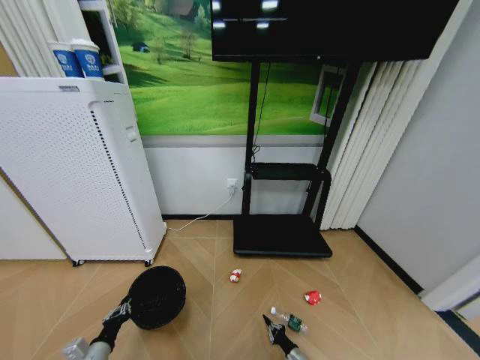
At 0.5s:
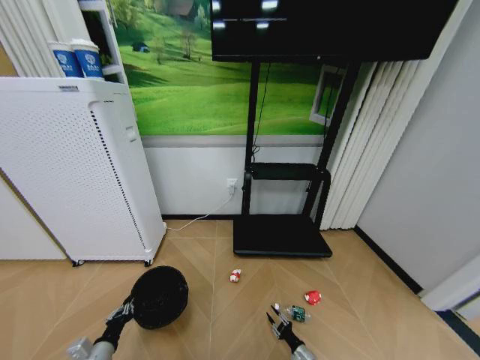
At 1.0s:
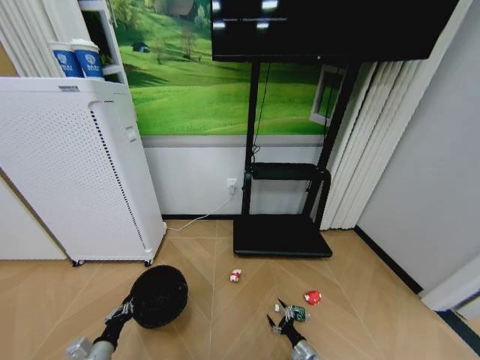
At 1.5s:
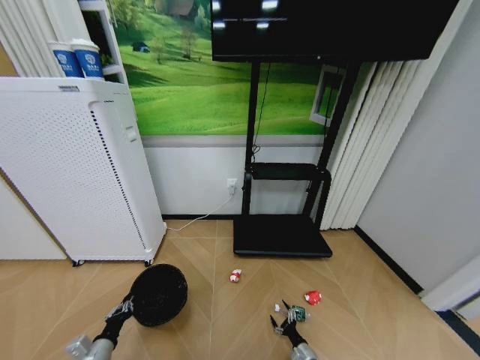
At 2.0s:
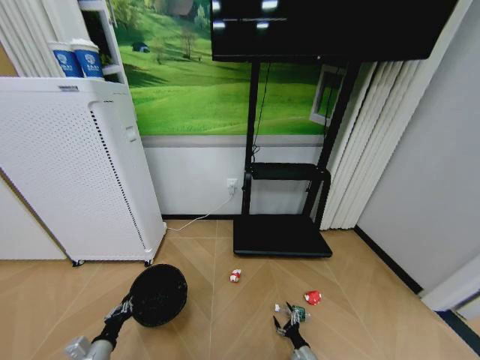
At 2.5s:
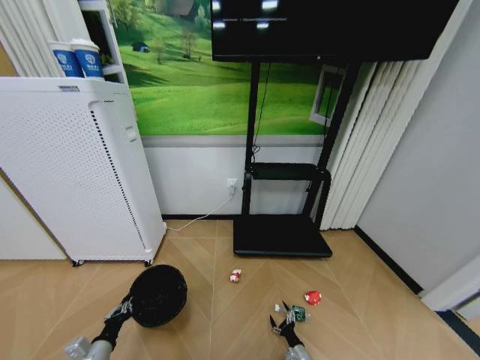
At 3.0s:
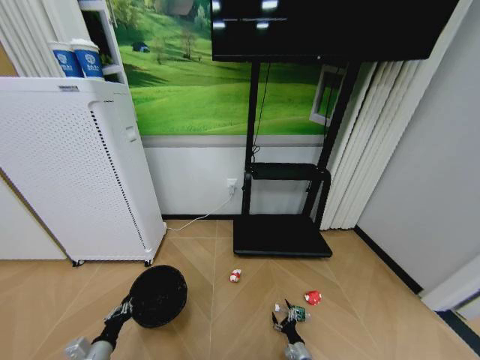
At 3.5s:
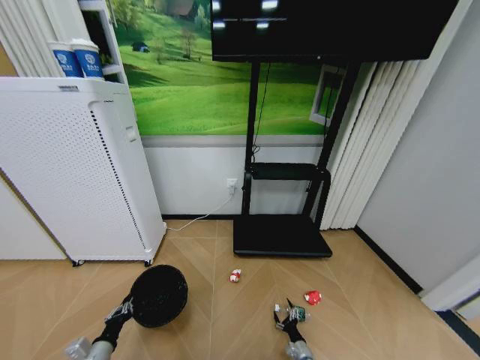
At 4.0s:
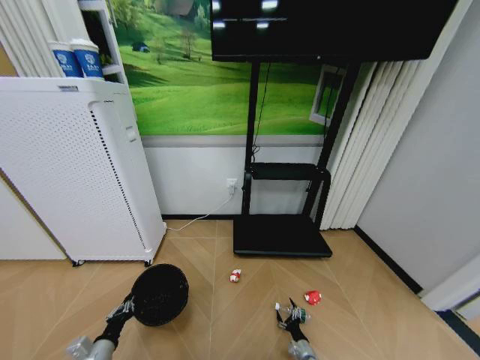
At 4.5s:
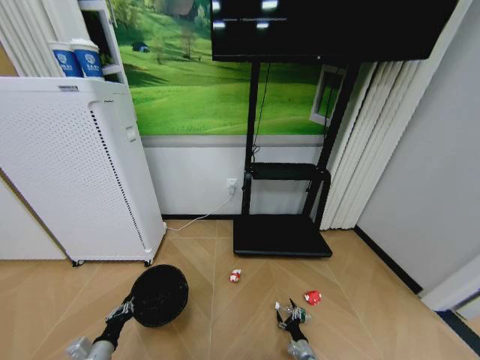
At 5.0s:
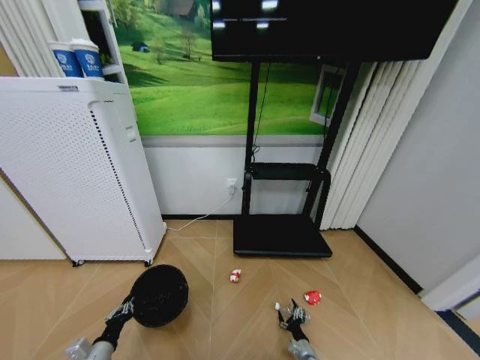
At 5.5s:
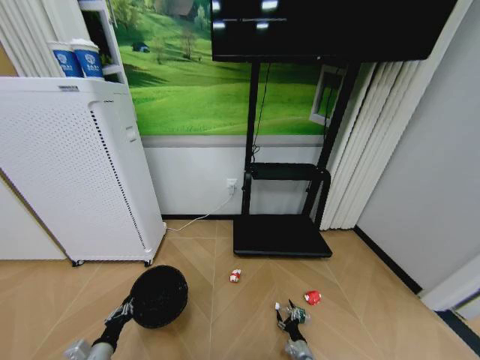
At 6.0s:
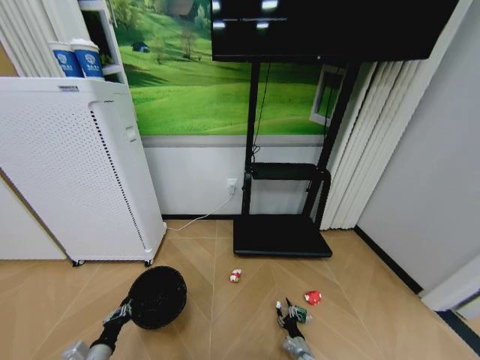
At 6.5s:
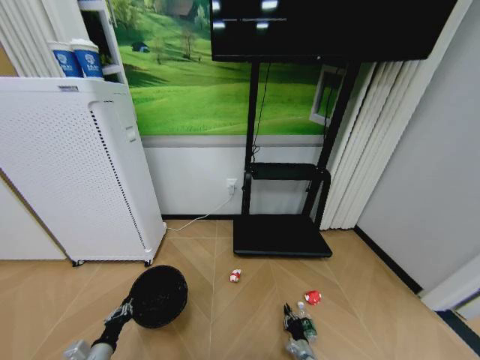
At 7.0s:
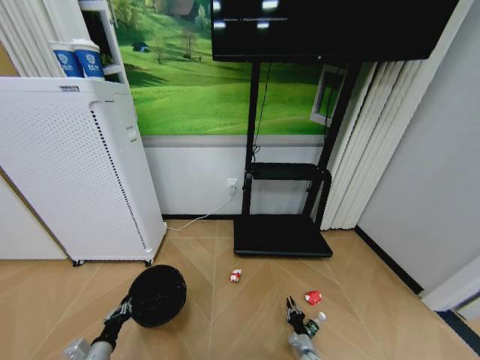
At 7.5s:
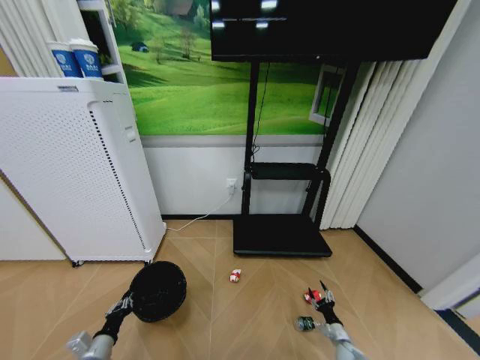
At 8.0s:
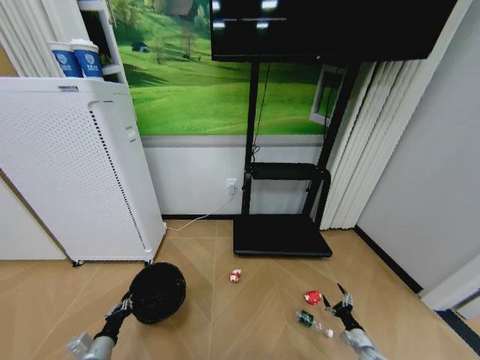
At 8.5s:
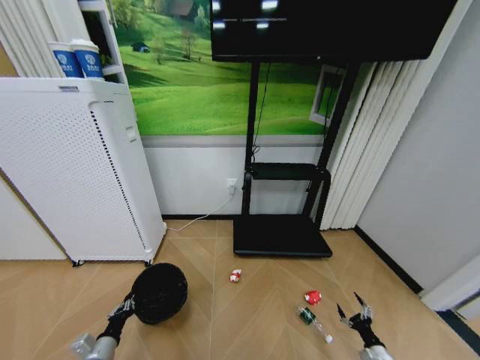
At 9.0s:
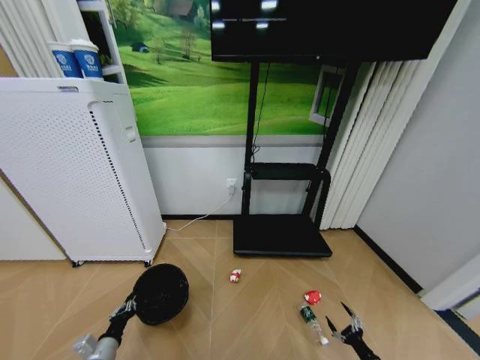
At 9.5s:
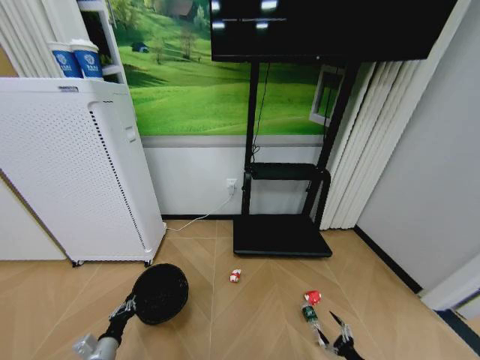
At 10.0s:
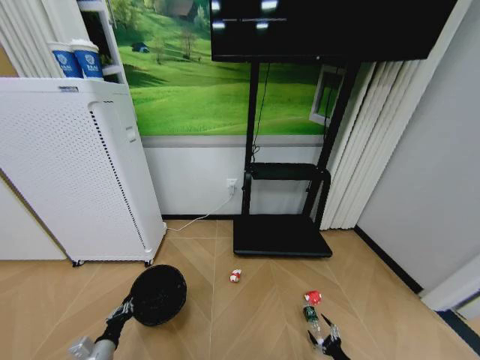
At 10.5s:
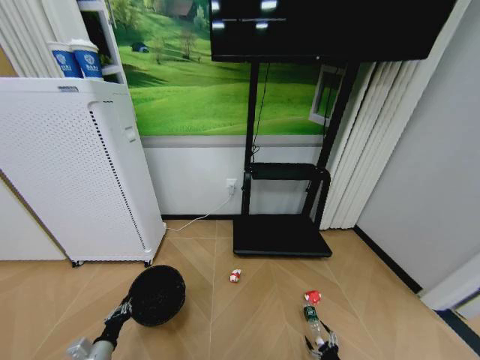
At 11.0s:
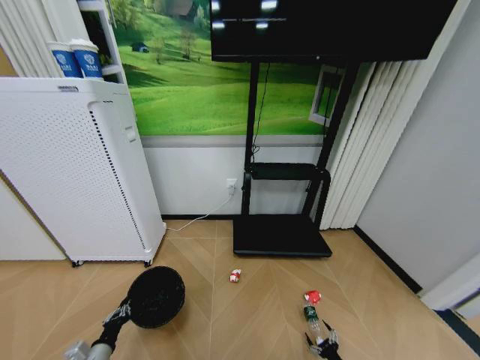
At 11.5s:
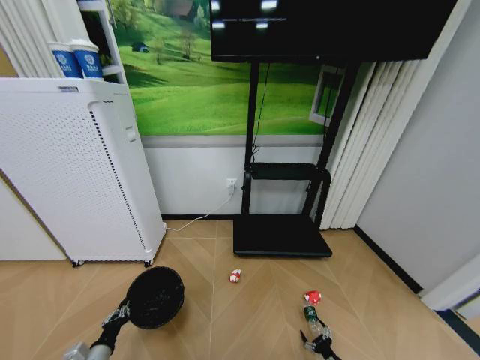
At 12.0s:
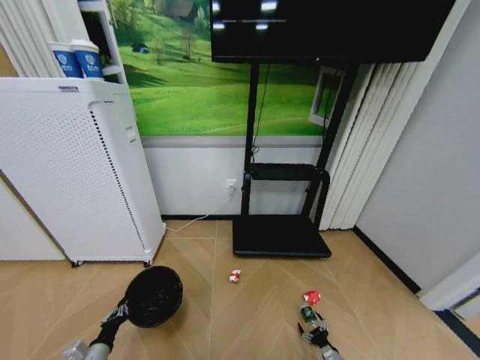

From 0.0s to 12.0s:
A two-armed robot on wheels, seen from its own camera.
Task of the whole recording: Pick up the trash bin and place the garbage on the floor into it.
From 0.0s to 2.0s: The right gripper opens its fingers.
From 2.0s to 6.0s: There are only small adjustments of the grippers.
From 6.0s to 8.0s: The right gripper shifts approximately 20 cm to the right and upward, and closes, then reopens.
From 8.0s to 10.0s: The right gripper moves backward, roughly 10 cm.
From 10.0s to 12.0s: The right gripper shifts approximately 5 cm forward.

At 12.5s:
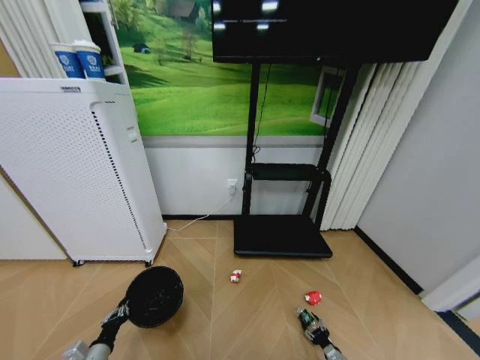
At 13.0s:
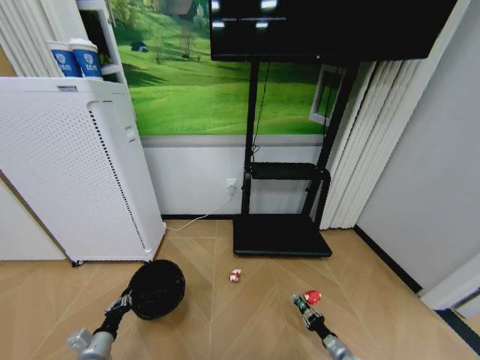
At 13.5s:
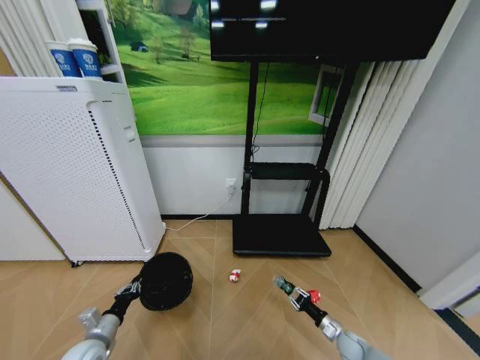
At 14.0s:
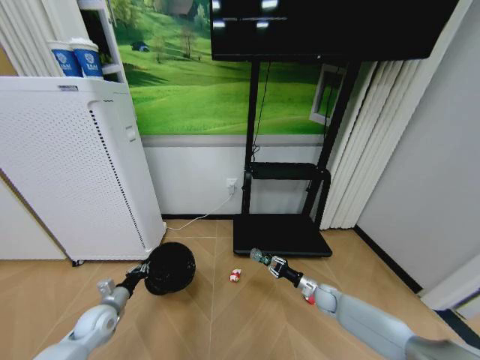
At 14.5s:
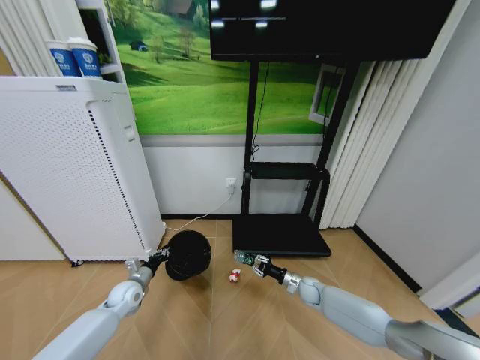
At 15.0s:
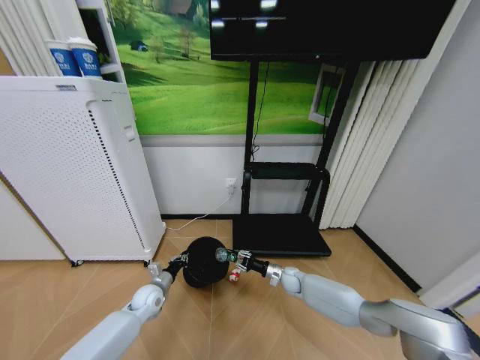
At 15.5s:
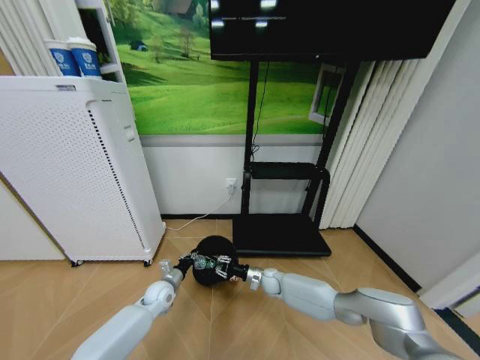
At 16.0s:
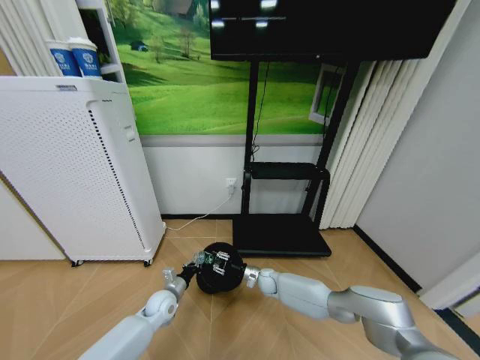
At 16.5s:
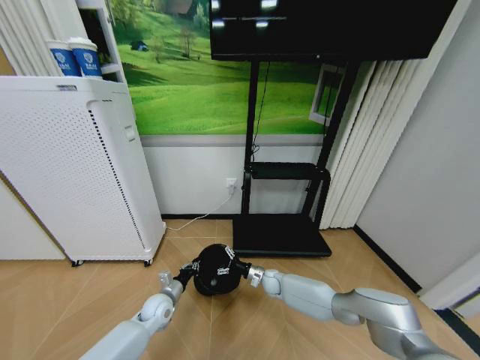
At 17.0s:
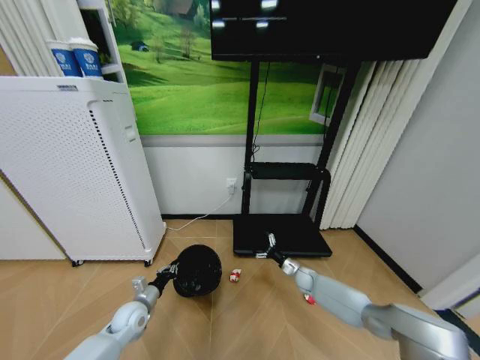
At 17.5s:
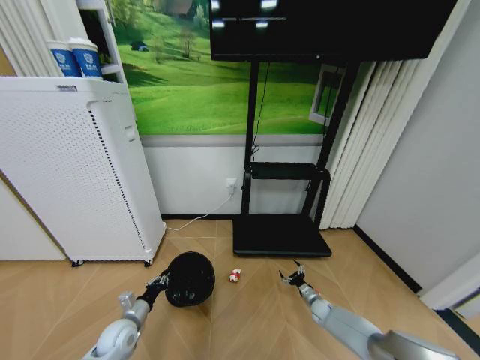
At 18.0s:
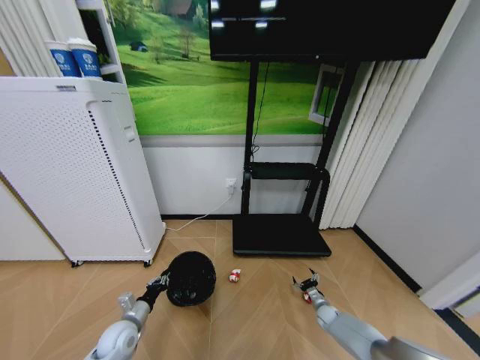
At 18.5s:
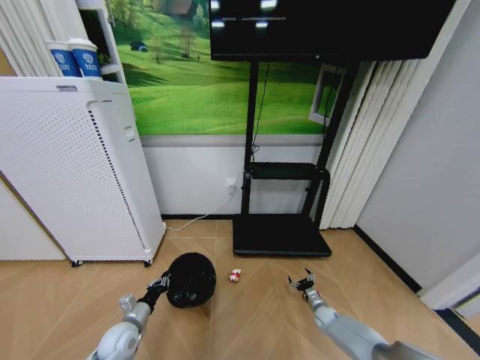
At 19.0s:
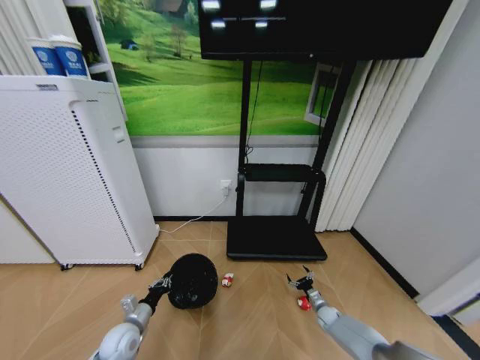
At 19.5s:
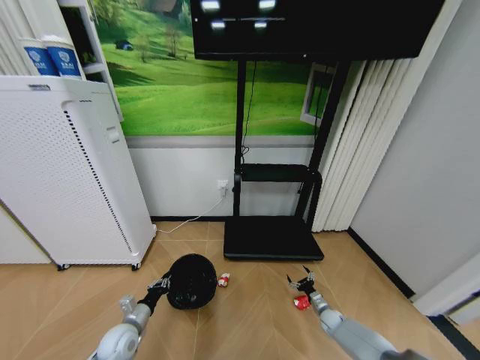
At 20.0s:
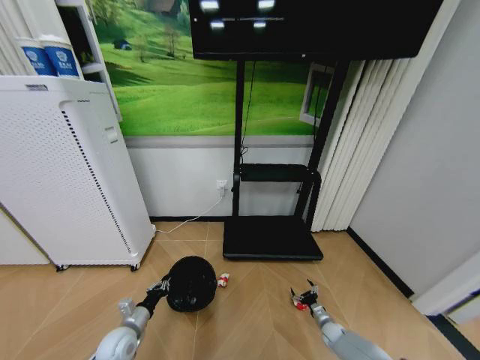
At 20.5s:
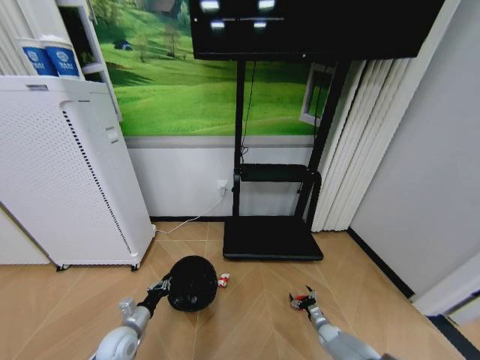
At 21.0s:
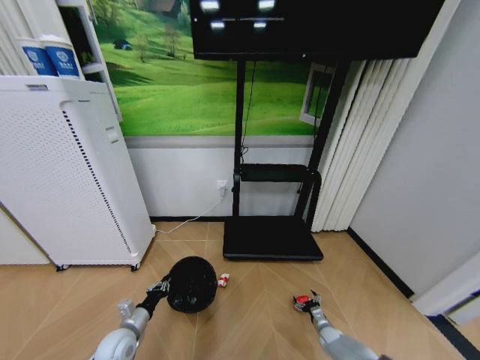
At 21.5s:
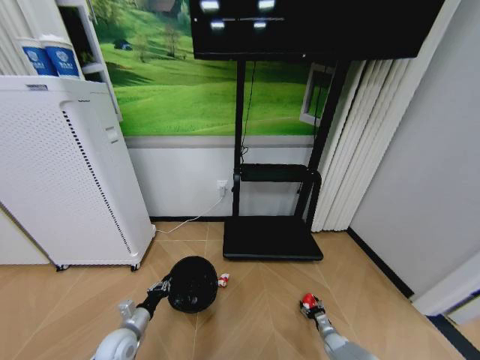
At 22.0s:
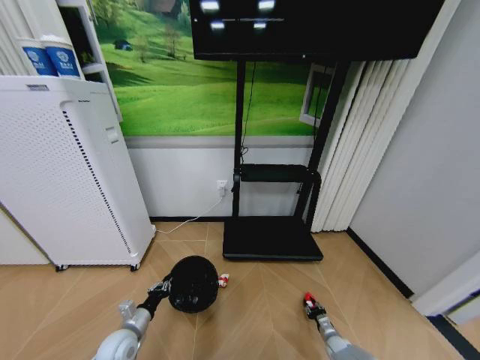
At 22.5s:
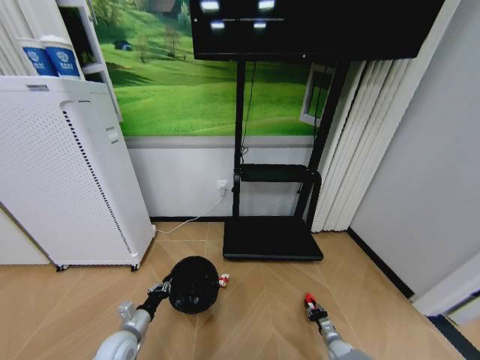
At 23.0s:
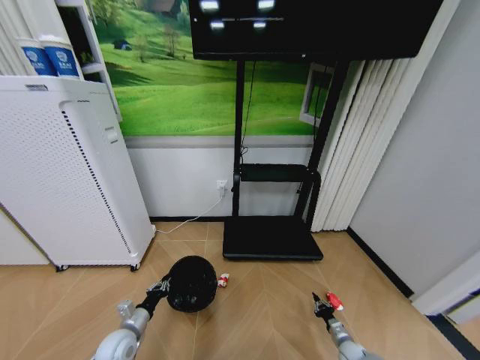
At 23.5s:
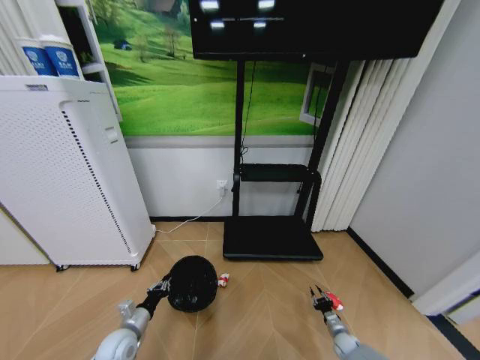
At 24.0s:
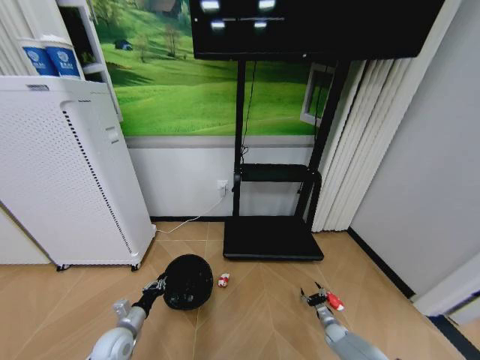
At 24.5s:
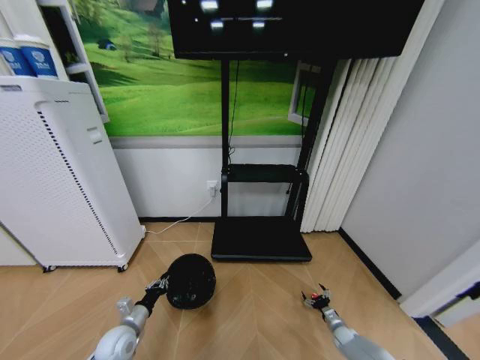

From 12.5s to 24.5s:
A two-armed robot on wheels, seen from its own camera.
Task of the whole recording: Pick up the trash bin and place the garbage on the floor into it.
From 12.5s to 14.5s: The right gripper shifts roughly 35 cm forward, upward and to the left, and closes, while the left gripper shifts about 20 cm forward.
From 14.5s to 16.5s: The right gripper heads to the left, covering approximately 15 cm, and opens up. The left gripper heads to the right, covering approximately 10 cm.
From 16.5s to 18.5s: The left gripper heads to the left and backward, covering approximately 10 cm. Meanwhile the right gripper goes roughly 25 cm to the right, downward and backward.
From 18.5s to 20.5s: The right gripper changes place by approximately 5 cm.
From 20.5s to 22.5s: The right gripper shifts by approximately 5 cm, and closes its fingers.
From 22.5s to 24.5s: The right gripper ends up about 5 cm from where it was, and opens its fingers.

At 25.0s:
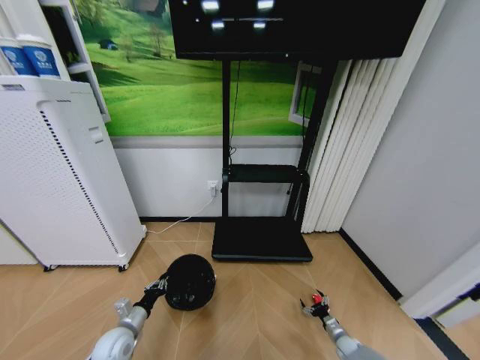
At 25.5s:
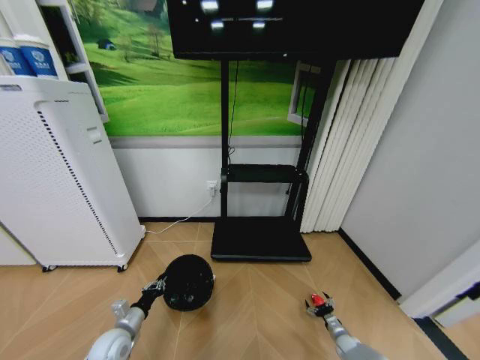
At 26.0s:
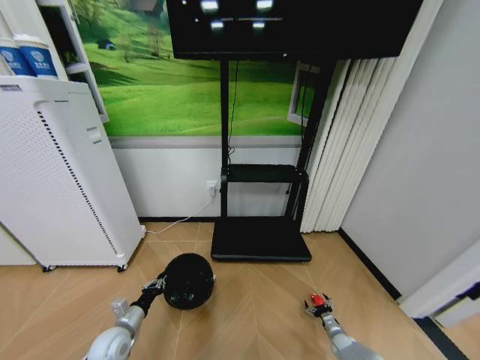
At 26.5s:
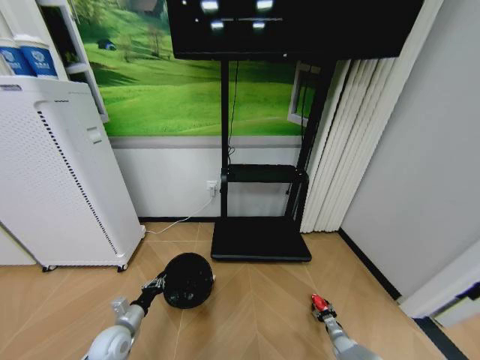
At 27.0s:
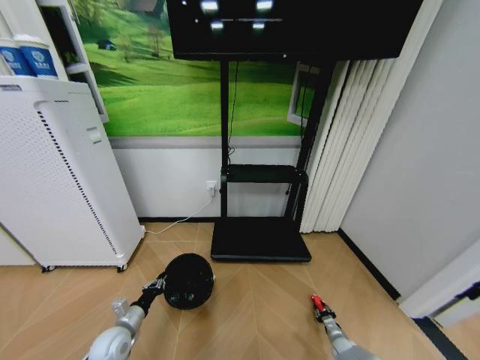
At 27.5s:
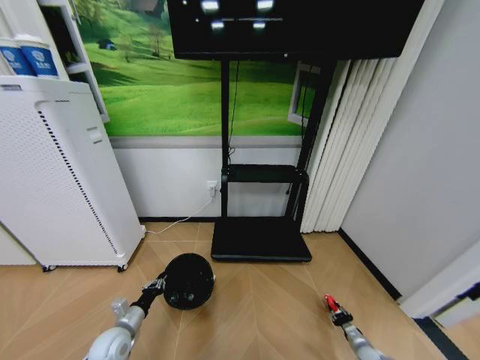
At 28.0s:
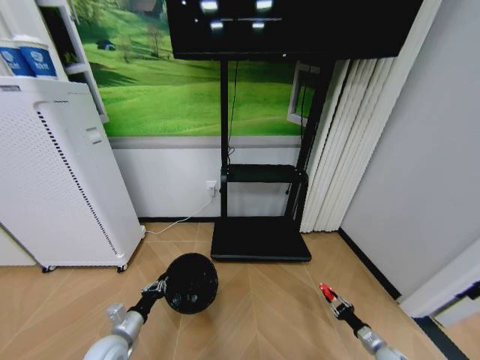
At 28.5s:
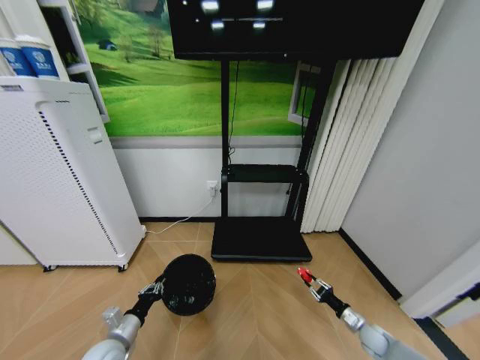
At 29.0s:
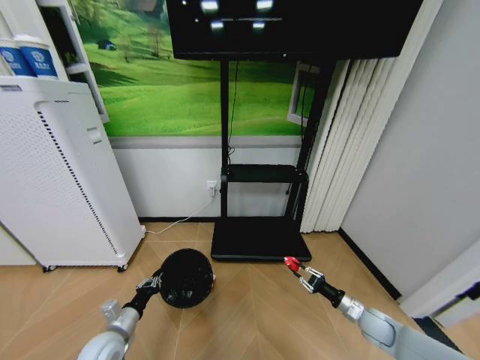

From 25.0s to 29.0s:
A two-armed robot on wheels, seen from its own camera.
Task of the whole recording: Pick up the trash bin and place the garbage on the floor into it.
From 25.0s to 27.0s: The right gripper closes its fingers.
From 27.0s to 29.0s: The left gripper shifts by some 5 cm, while the right gripper travels upward by roughly 20 cm.
